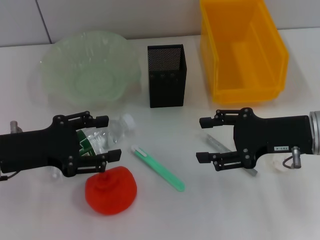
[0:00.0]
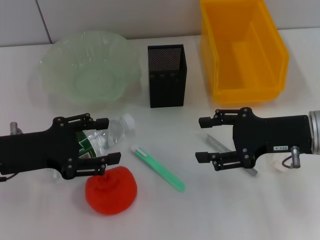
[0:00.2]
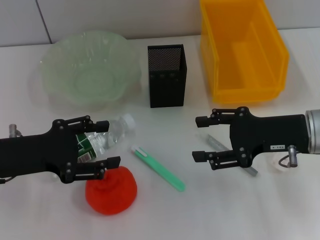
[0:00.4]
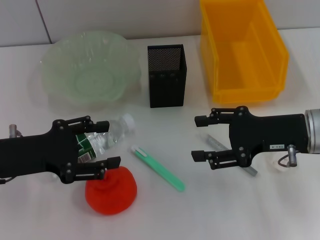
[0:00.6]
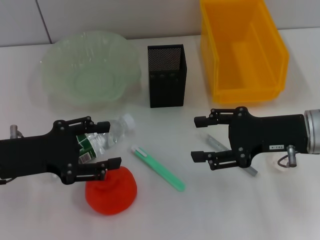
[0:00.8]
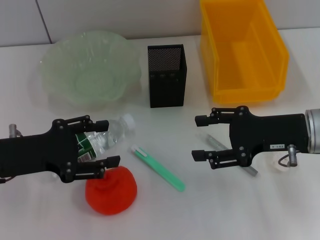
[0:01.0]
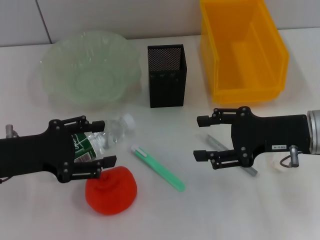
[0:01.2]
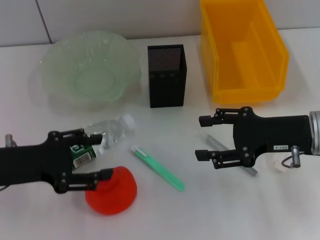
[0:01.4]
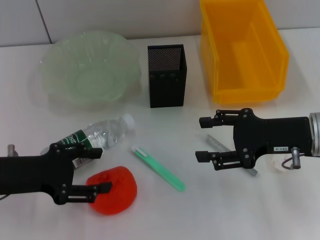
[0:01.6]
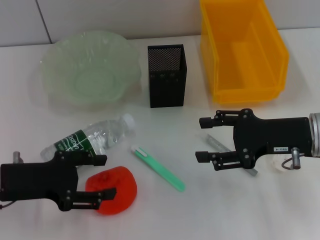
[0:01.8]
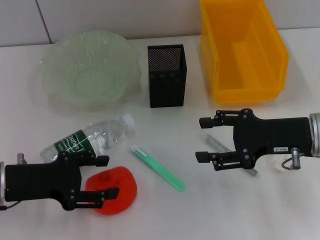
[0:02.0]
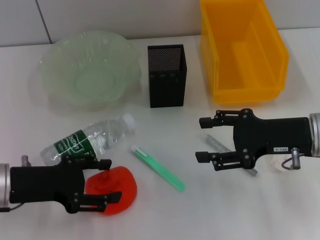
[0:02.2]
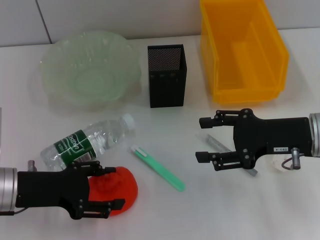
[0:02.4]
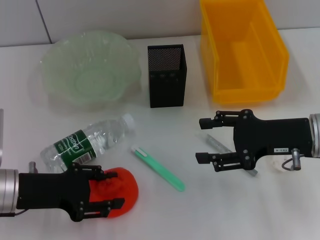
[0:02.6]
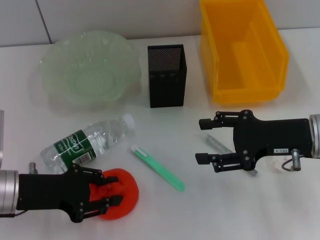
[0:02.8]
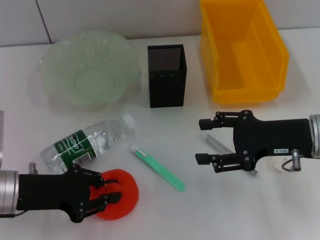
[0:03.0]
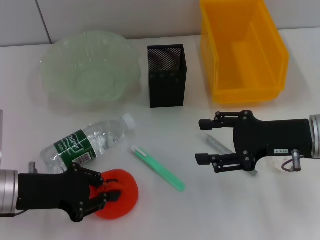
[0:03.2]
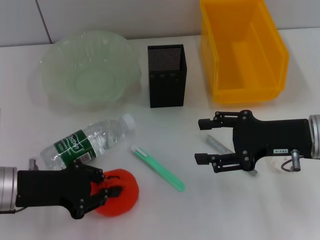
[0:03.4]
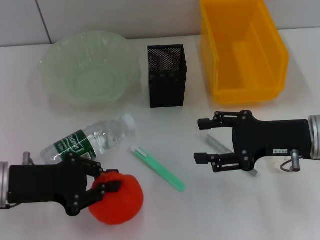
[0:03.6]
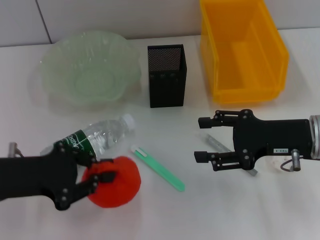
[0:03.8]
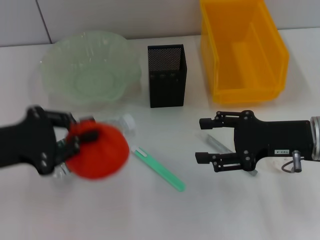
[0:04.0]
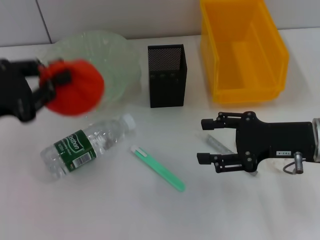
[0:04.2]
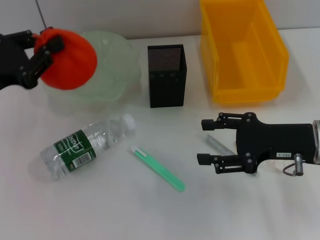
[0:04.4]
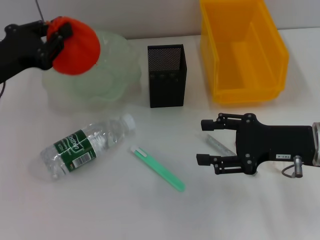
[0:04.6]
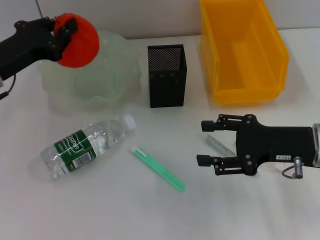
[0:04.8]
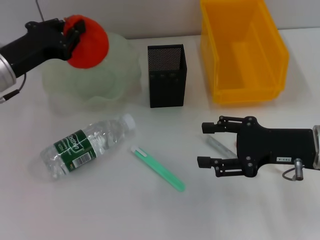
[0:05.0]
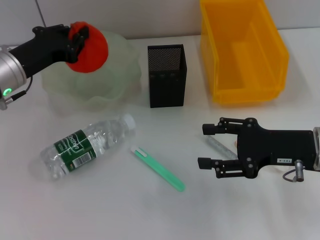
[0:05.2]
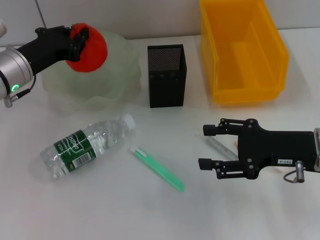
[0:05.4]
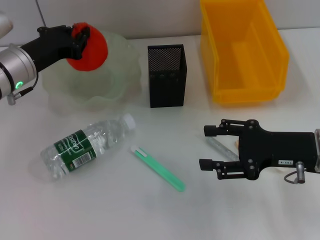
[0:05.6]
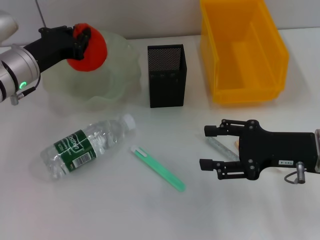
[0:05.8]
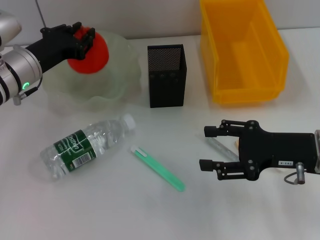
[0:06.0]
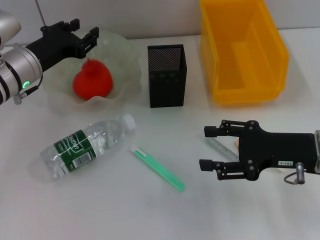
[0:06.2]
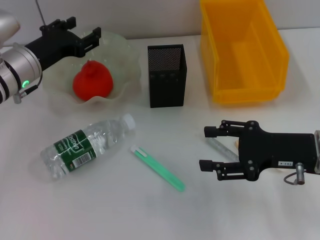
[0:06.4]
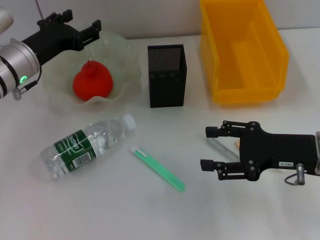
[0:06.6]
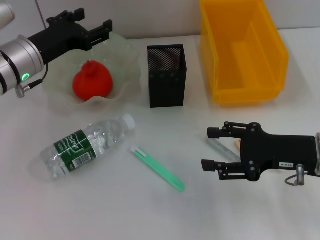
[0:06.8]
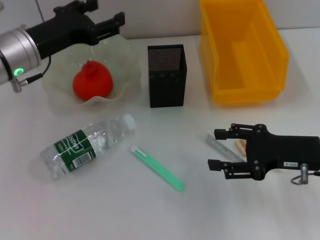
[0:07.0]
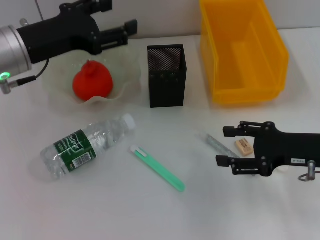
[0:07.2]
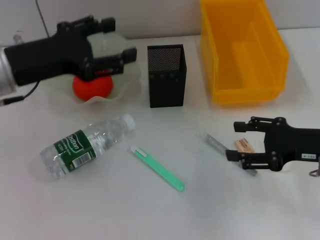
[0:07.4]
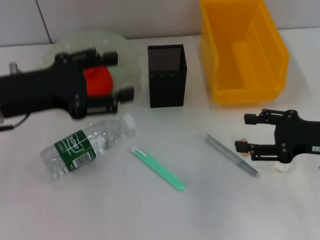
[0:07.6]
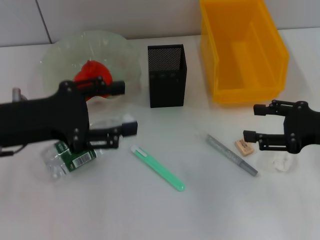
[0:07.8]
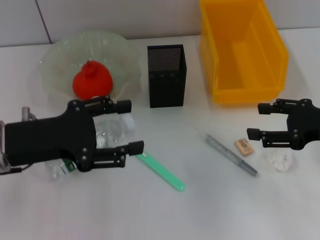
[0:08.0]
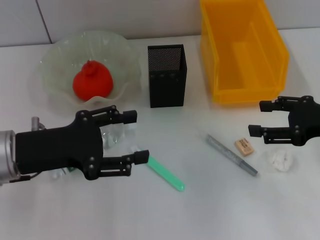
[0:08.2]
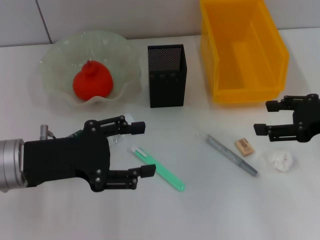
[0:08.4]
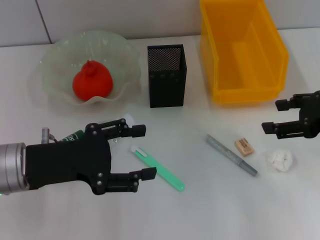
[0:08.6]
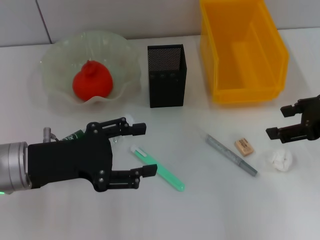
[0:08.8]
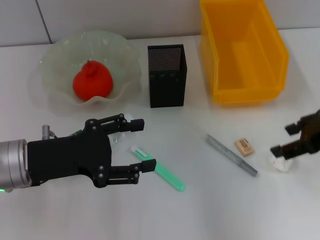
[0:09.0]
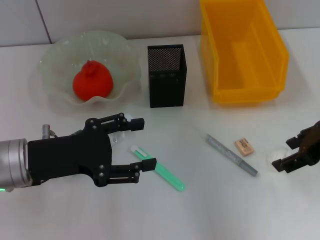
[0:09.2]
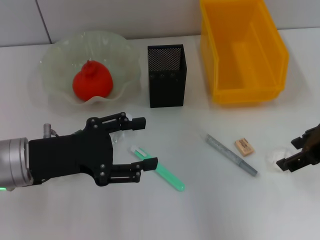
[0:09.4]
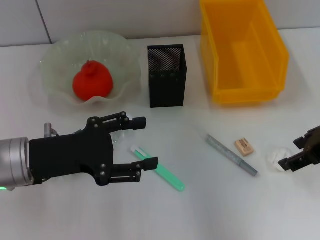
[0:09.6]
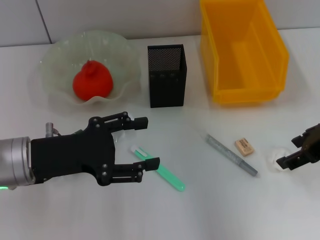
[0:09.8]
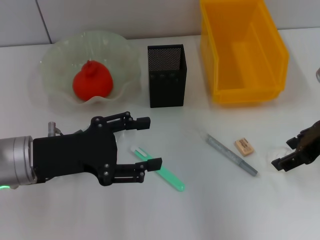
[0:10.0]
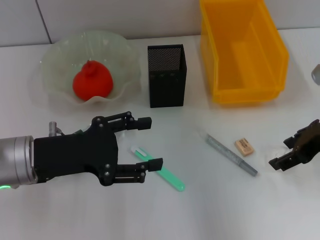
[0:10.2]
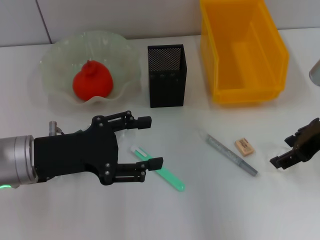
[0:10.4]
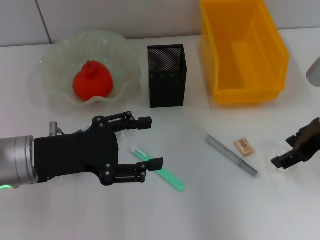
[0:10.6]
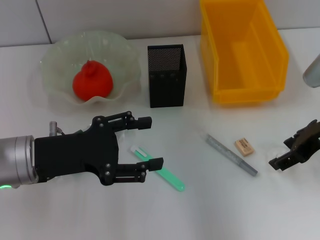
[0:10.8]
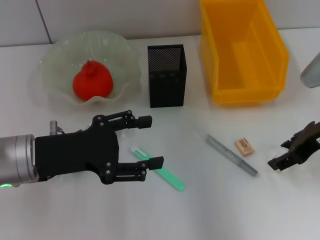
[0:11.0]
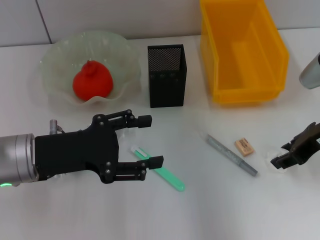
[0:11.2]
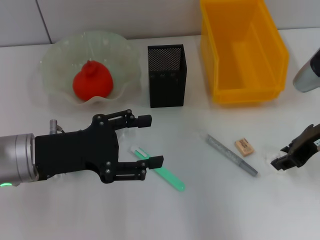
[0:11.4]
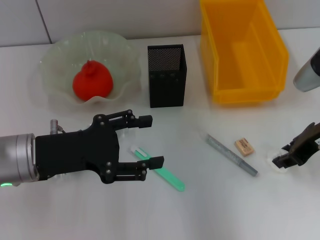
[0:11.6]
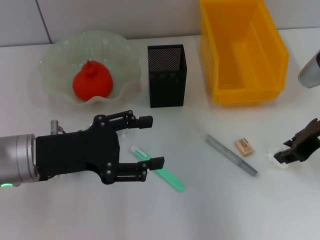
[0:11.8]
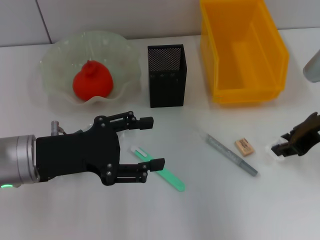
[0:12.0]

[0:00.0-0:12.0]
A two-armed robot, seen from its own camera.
Step, 0:00.0 to 0:03.2: Grab the orange with the left hand.
Step, 0:03.4 to 0:06.2: Place the orange into the fruit bowl with the left hand.
Step, 0:06.6 to 0:11.4: Grab the paper ball with the right hand.
0:00.0 to 0:01.6: There are only small adjustments of the grippers.
0:01.6 to 0:03.0: The left gripper closes its fingers.
0:03.0 to 0:04.4: The left gripper heads upward, covering about 10 cm.
0:04.4 to 0:06.0: The left gripper is displaced forward and to the right by some 10 cm.
0:06.0 to 0:07.6: The left gripper shifts about 10 cm backward and upward, and opens up.
0:07.6 to 0:09.0: The right gripper heads upward, covering roughly 5 cm; the left gripper is displaced downward by roughly 5 cm.
0:09.0 to 0:10.4: The grippers make only small movements.
0:10.4 to 0:12.0: The right gripper closes.

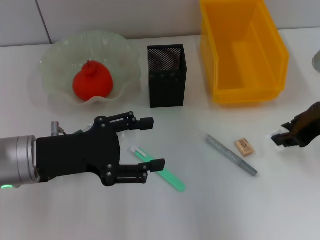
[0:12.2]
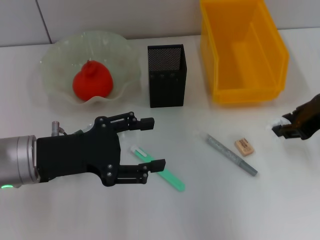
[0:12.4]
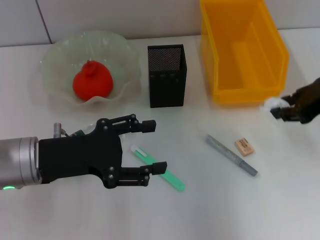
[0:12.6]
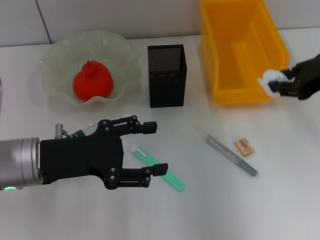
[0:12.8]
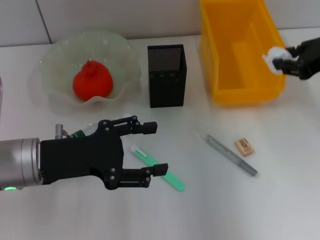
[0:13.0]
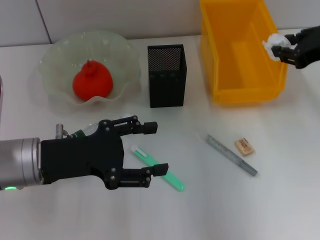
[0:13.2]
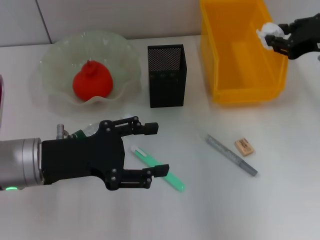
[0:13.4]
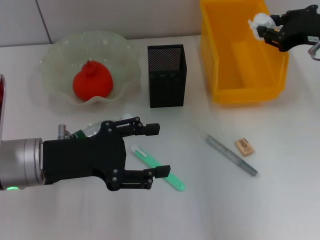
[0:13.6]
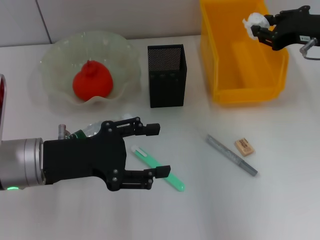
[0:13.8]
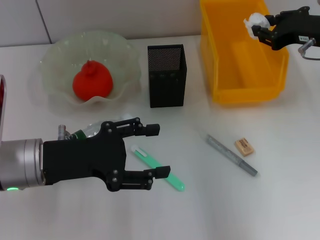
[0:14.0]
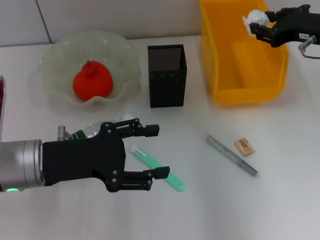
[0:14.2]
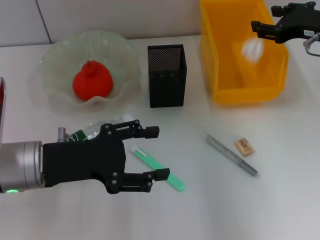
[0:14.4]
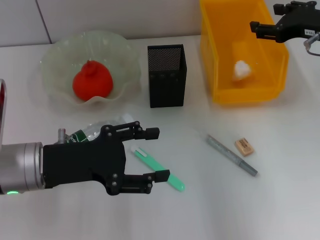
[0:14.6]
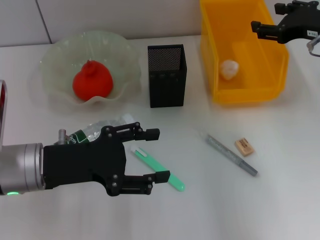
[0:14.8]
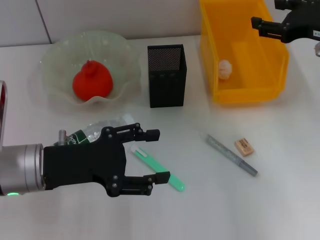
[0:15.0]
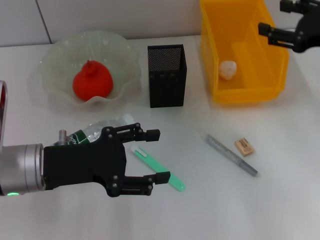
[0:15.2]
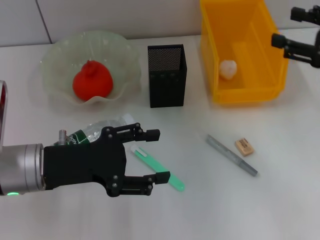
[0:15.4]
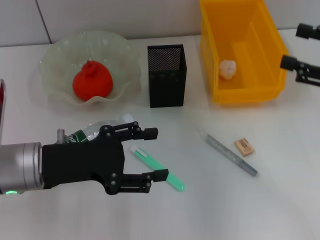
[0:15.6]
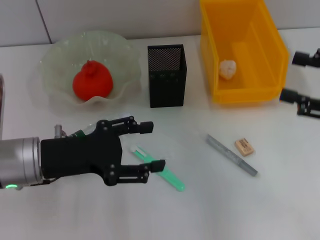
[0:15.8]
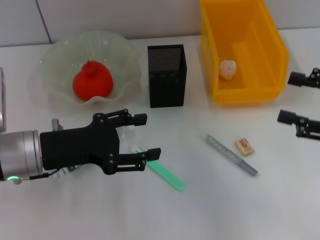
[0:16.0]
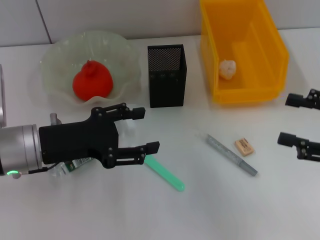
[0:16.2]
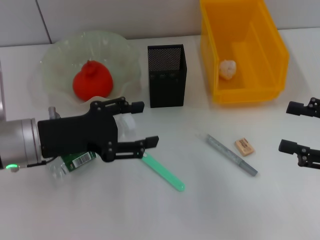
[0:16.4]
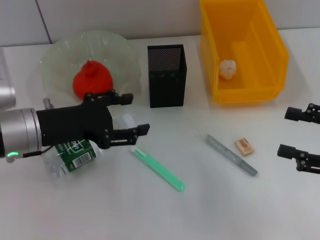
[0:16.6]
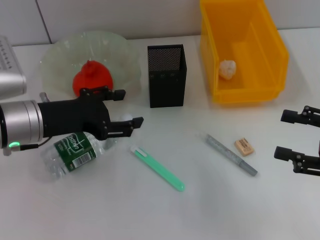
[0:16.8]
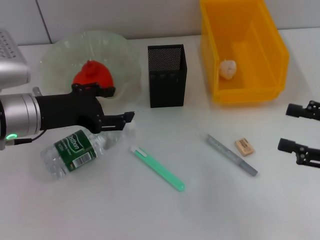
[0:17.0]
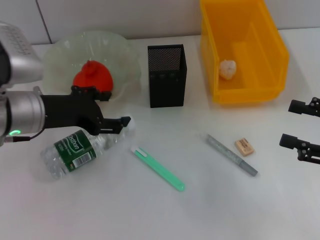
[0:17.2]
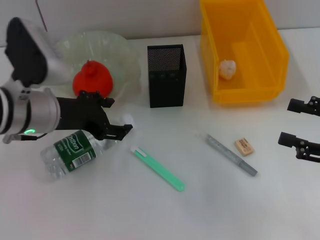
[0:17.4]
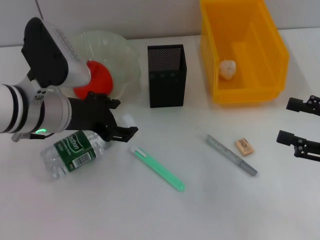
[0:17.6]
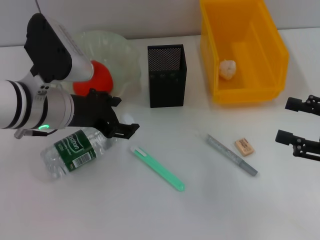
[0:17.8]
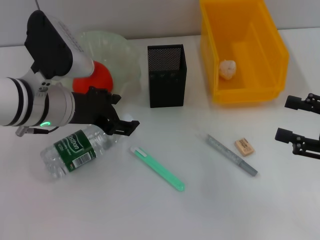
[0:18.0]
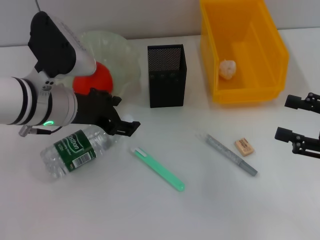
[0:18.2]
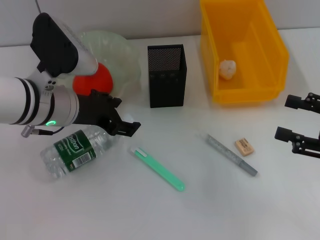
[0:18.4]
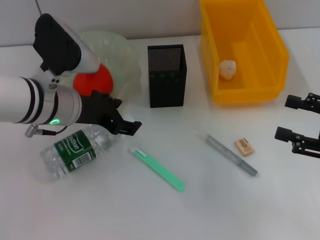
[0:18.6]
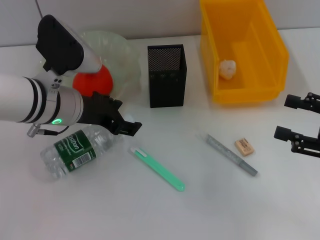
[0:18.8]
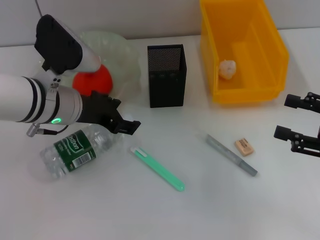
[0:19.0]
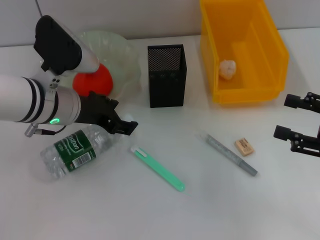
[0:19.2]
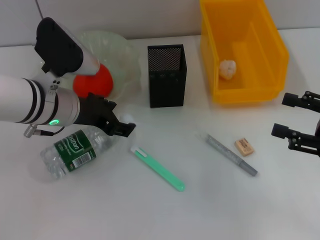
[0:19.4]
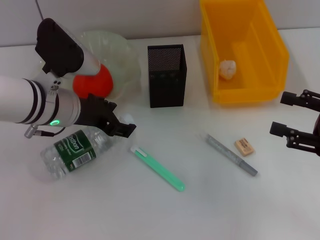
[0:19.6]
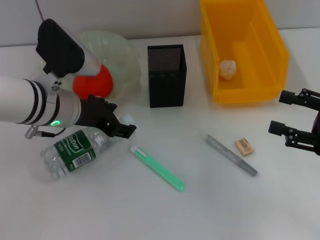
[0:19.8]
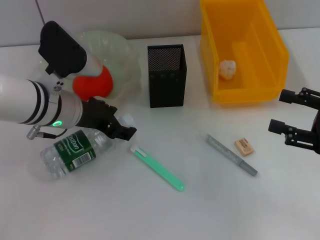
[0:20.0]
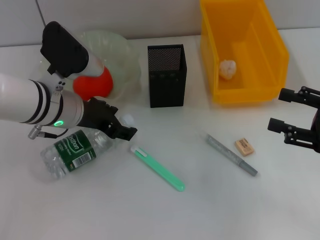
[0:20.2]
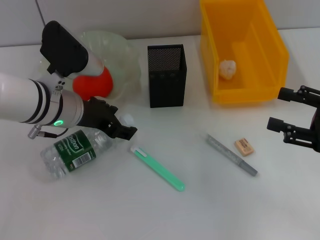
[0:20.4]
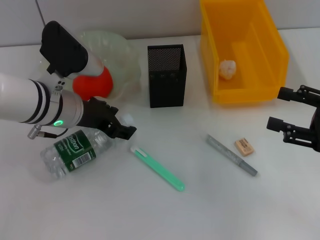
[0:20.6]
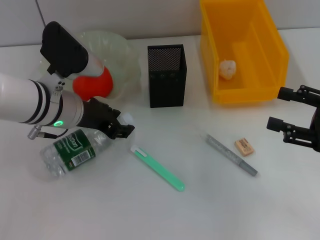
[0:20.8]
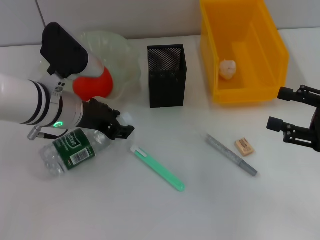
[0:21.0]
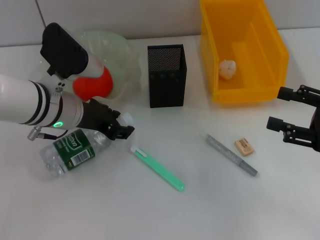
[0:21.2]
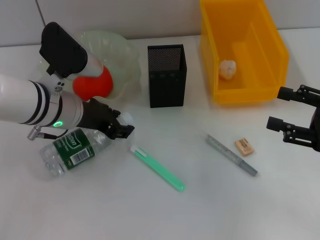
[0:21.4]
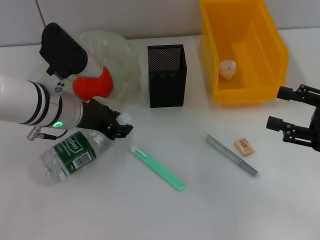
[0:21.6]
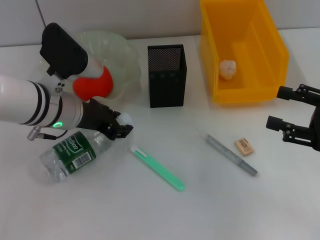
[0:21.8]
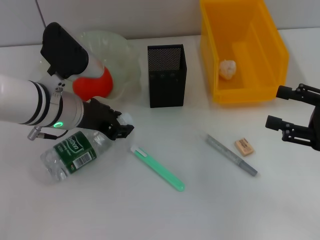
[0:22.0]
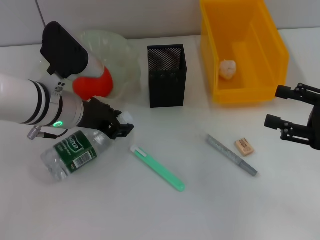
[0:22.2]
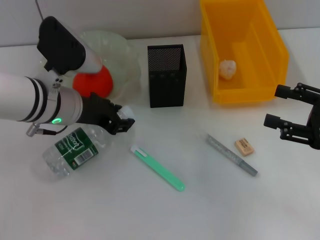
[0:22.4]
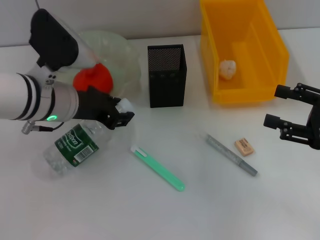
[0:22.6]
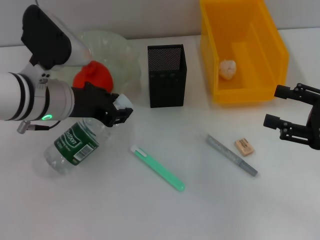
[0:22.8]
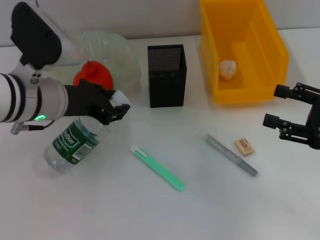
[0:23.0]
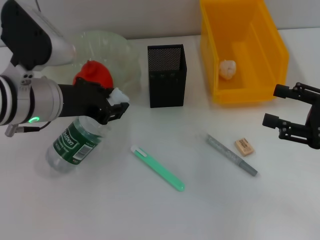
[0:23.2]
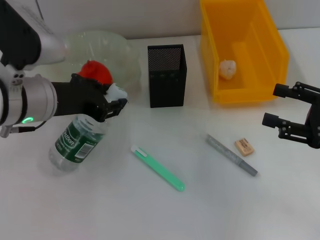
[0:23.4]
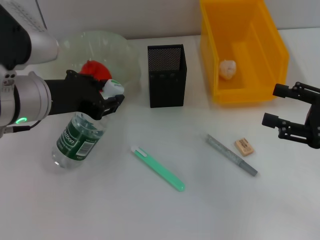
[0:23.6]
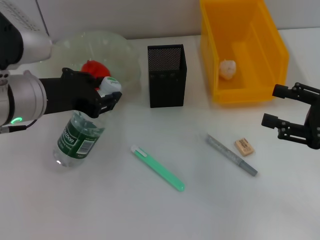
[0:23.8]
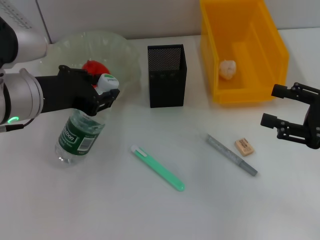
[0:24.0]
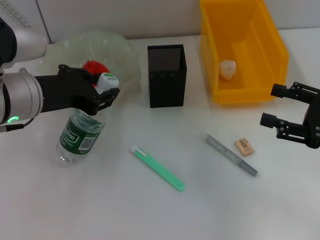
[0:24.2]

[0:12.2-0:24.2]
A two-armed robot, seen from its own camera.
Step, 0:12.2 to 0:14.6: Place the paper ball into the trash can with the right hand.
Step, 0:14.8 to 0:22.2: Grab the water bottle with the left hand.
0:12.2 to 0:13.8: The right gripper moves forward, about 5 cm.
0:13.8 to 0:15.2: The right gripper changes place by some 5 cm, and opens up.
0:15.2 to 0:16.6: The right gripper travels backward and downward by roughly 15 cm.
0:16.6 to 0:18.2: The left gripper travels to the right by approximately 5 cm.
0:18.2 to 0:19.8: The grippers stay close to where they were, moving slightly.
0:19.8 to 0:21.2: Both grippers stay put.
0:21.2 to 0:22.6: There are only small adjustments of the grippers.
0:22.6 to 0:24.2: The left gripper changes place by approximately 5 cm.
